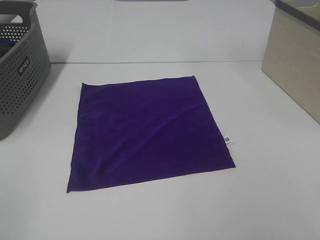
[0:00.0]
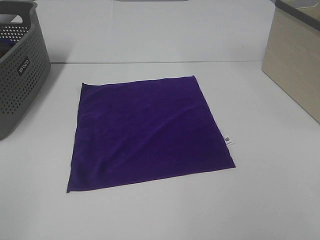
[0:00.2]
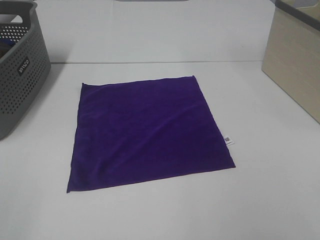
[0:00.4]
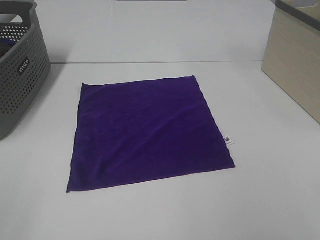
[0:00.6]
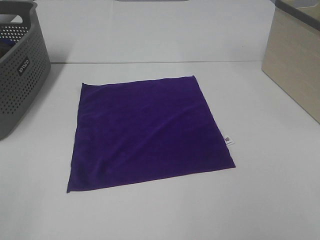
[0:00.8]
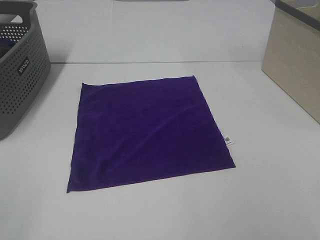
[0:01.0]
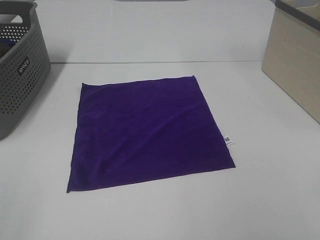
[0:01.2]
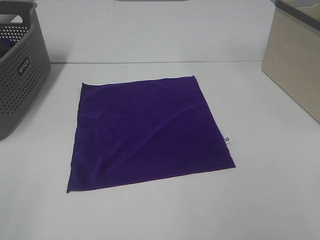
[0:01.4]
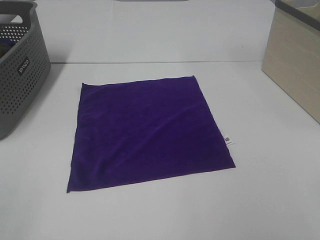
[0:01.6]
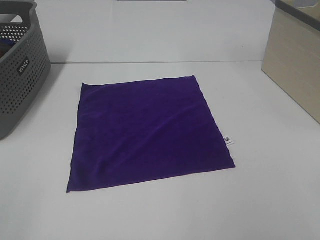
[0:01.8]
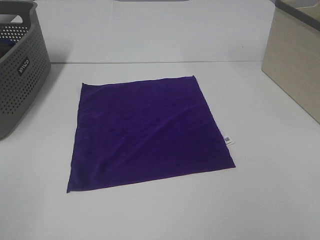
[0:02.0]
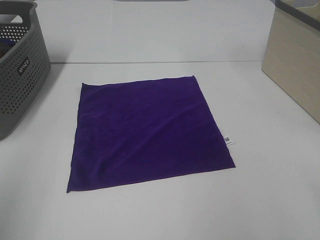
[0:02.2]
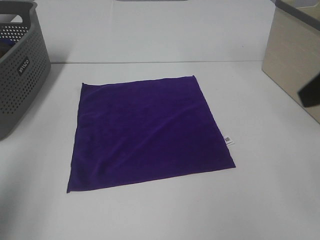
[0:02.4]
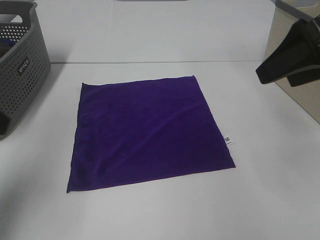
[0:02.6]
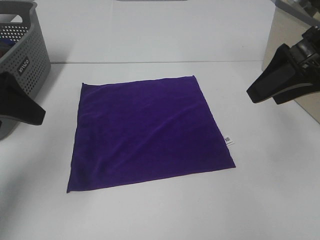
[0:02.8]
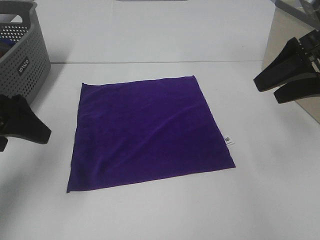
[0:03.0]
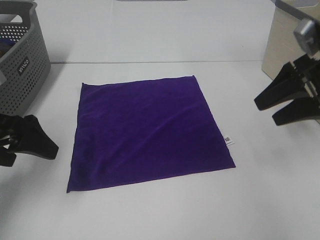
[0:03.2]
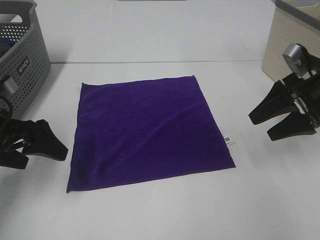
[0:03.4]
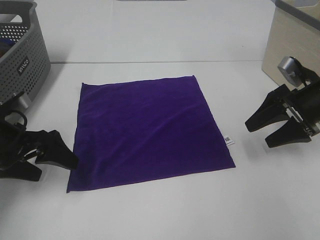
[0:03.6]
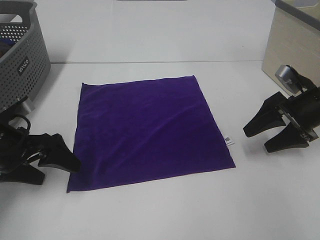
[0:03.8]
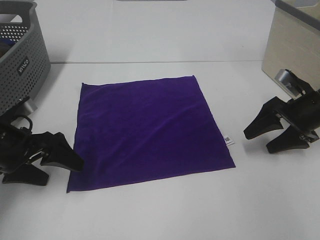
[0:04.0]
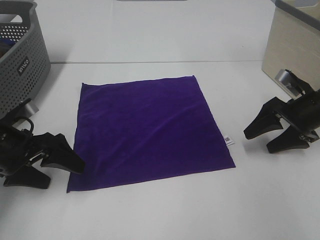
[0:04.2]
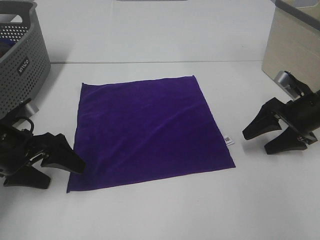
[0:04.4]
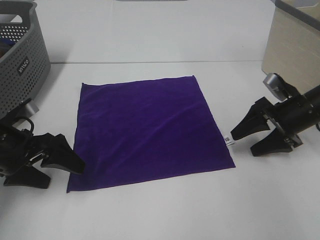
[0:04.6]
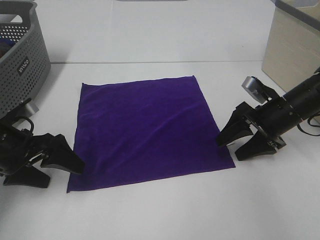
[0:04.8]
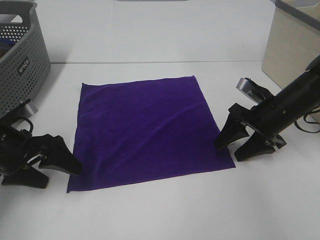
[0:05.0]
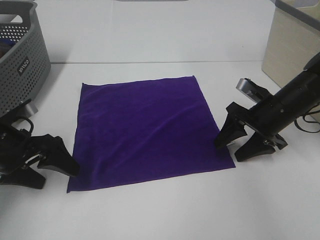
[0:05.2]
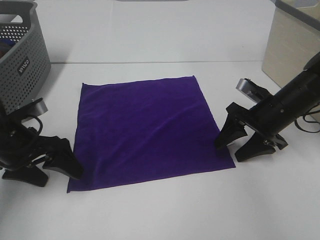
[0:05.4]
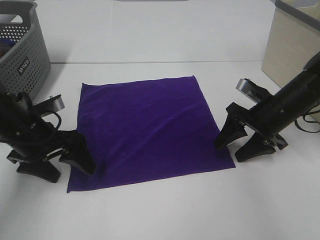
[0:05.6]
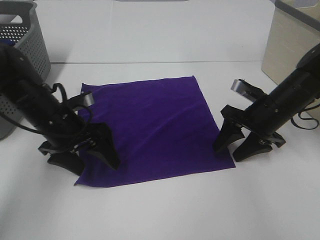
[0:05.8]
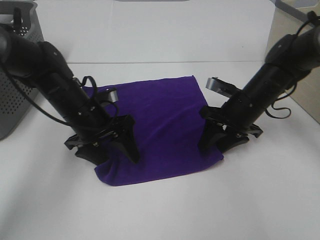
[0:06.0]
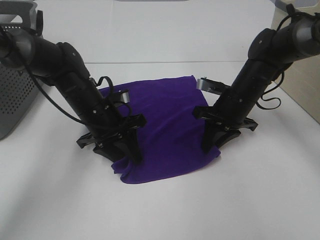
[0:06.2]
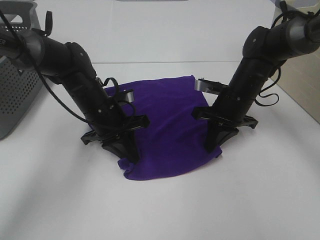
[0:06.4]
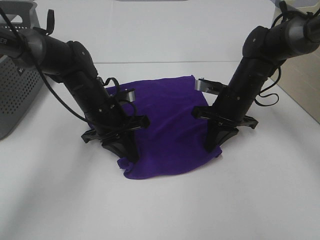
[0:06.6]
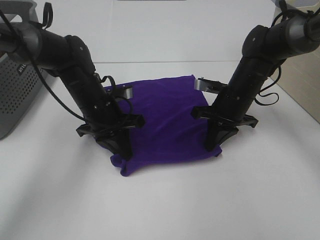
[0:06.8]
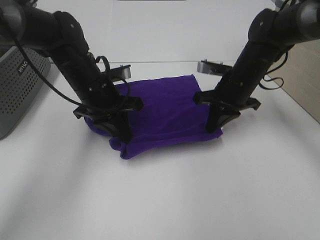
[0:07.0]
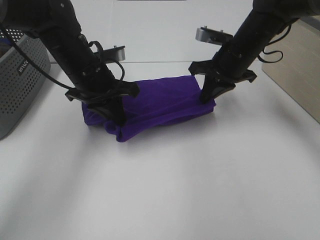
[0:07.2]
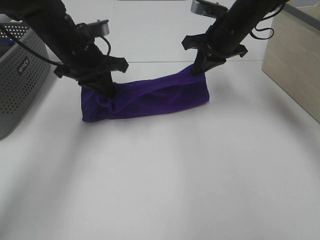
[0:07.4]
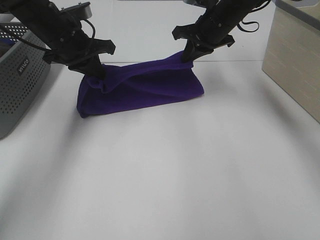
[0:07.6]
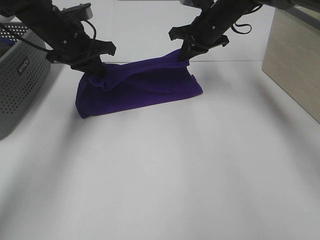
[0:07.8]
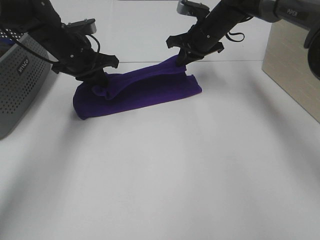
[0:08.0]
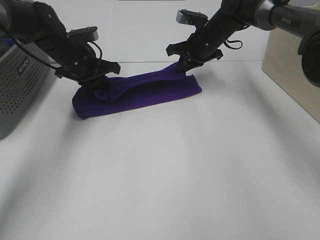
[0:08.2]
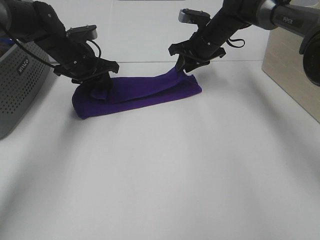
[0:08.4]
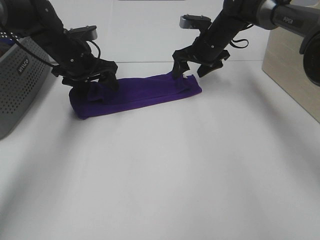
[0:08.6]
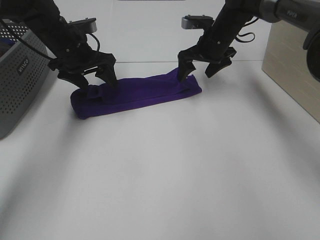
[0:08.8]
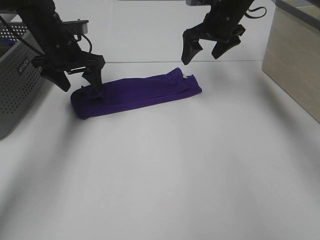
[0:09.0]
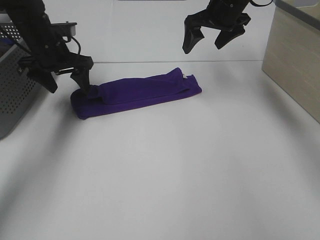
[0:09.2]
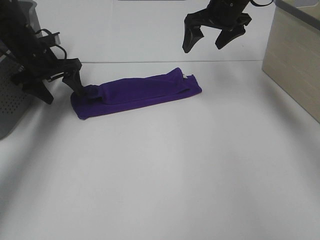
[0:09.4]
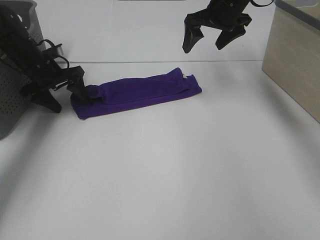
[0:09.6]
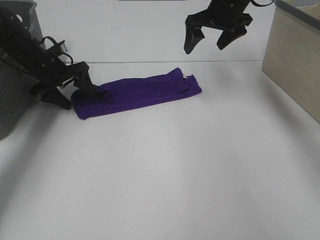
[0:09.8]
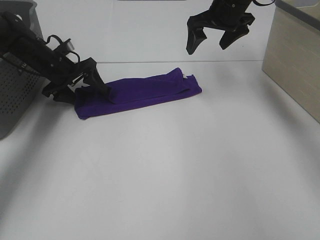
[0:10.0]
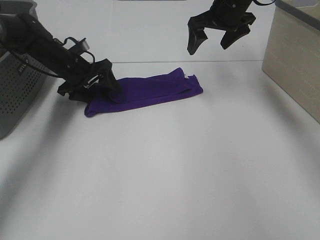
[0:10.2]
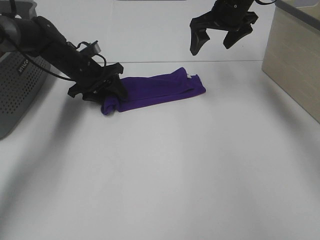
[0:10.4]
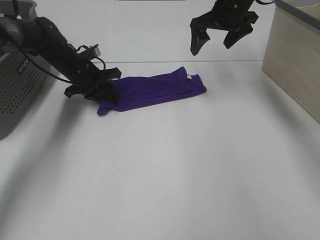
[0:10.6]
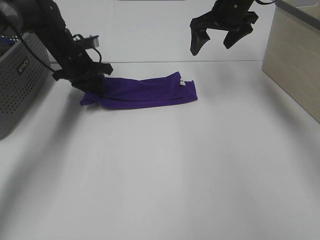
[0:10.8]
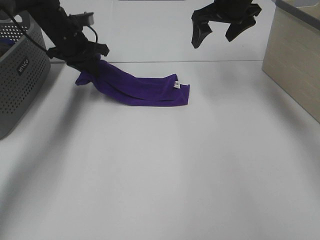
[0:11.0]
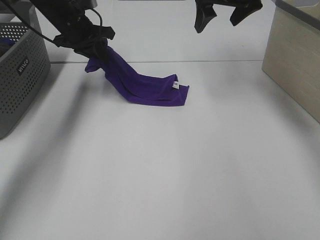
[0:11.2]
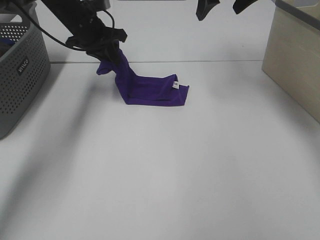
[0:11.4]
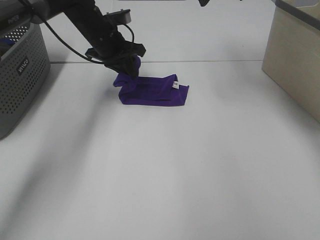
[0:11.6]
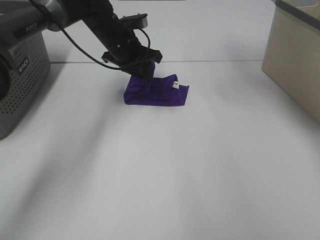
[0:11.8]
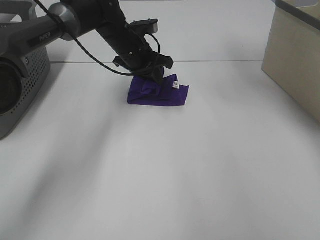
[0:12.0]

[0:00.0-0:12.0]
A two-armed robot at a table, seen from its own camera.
Task of the whole recording: Fold towels.
Step, 0:00.0 to 0:06.4: Left hand: grab the bottom left corner of purple towel.
Step, 0:00.0 to 0:06.4: Right hand: grab the bottom right corner of purple towel.
Step, 0:06.6 to 0:08.2: Left hand: fold the purple towel up.
Step, 0:06.6 to 0:08.2: Right hand: fold the purple towel up.
0:01.6 to 0:03.0: Both grippers travel together forward, approximately 25 cm.
0:03.0 to 0:04.4: The two grippers go roughly 15 cm downward.
0:04.4 to 0:06.0: The right gripper heads to the left, covering about 10 cm. Meanwhile the left gripper heads to the right and forward, covering some 15 cm.
0:06.0 to 0:07.6: The right gripper shifts roughly 20 cm forward, upward and to the left, and closes its fingers. The left gripper goes some 15 cm upward and forward, and closes.
0:07.6 to 0:09.0: The left gripper opens, while the right gripper opens up.
0:09.0 to 0:10.4: The left gripper travels downward by approximately 10 cm.
0:10.4 to 0:12.0: The right gripper heads upward, covering roughly 15 cm. The left gripper travels to the right and upward by roughly 15 cm, and closes up.

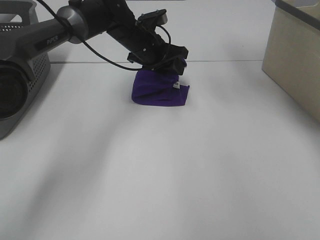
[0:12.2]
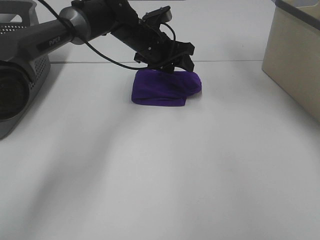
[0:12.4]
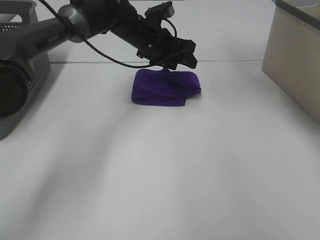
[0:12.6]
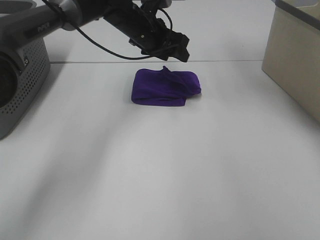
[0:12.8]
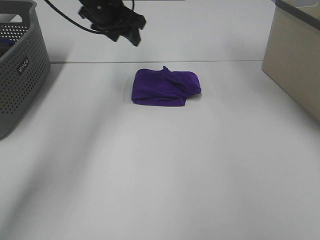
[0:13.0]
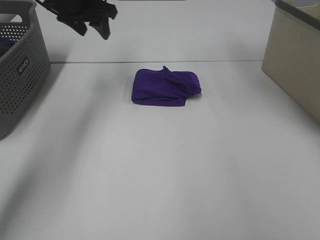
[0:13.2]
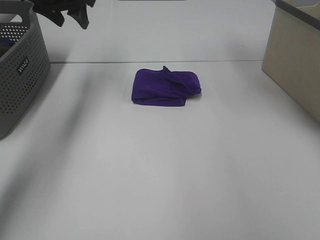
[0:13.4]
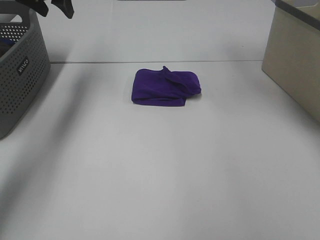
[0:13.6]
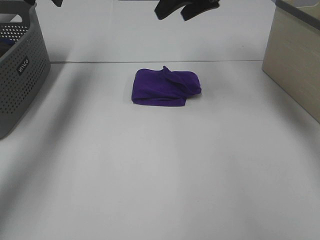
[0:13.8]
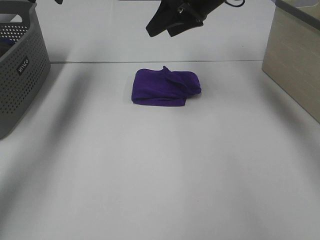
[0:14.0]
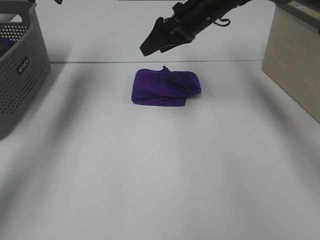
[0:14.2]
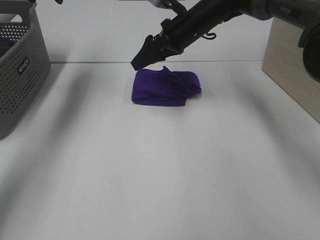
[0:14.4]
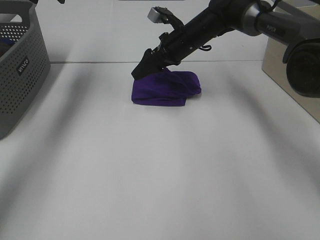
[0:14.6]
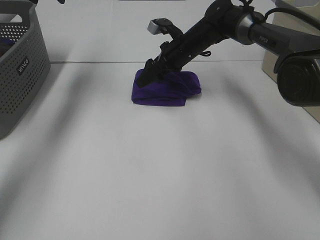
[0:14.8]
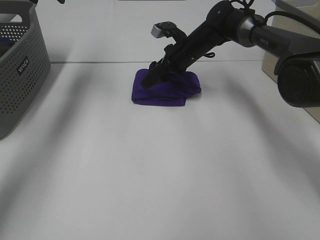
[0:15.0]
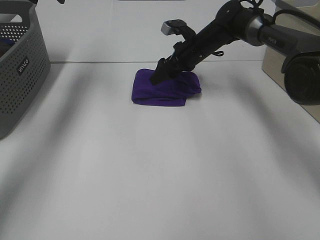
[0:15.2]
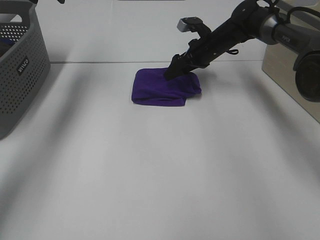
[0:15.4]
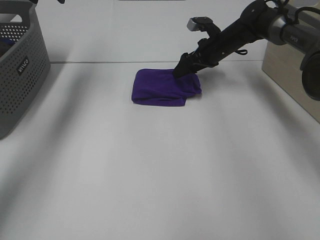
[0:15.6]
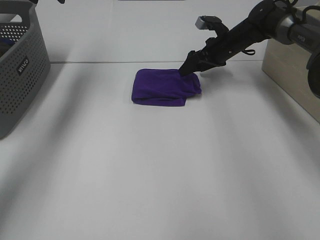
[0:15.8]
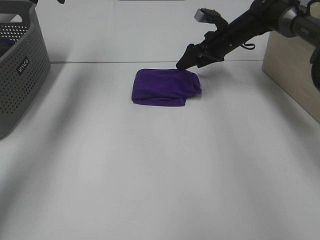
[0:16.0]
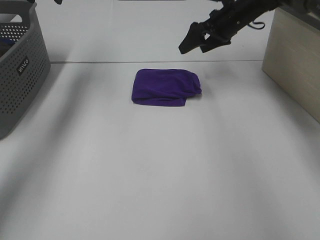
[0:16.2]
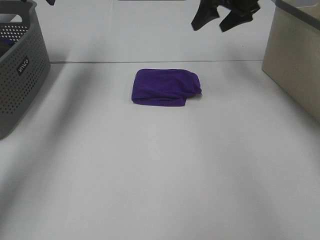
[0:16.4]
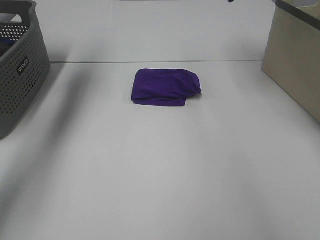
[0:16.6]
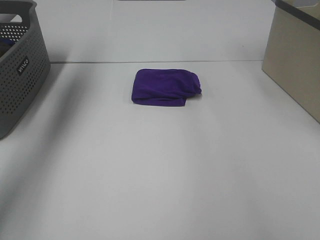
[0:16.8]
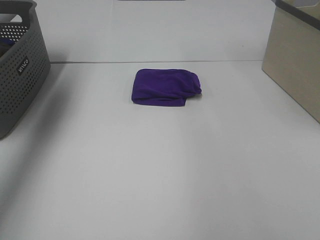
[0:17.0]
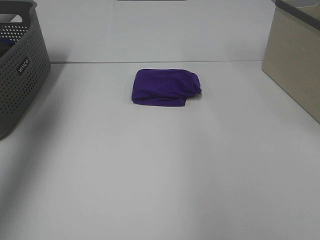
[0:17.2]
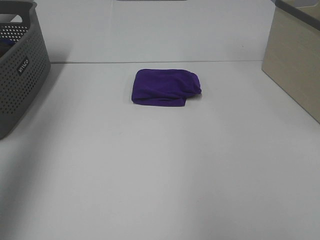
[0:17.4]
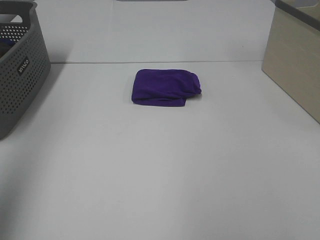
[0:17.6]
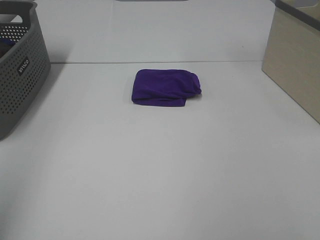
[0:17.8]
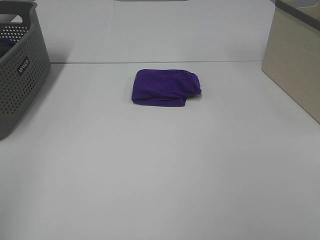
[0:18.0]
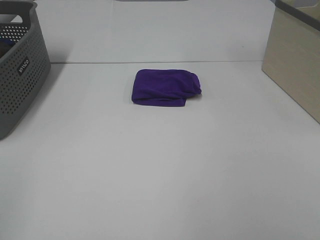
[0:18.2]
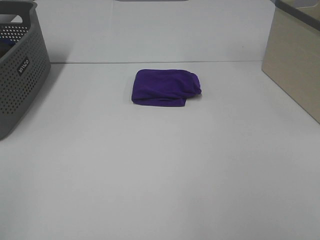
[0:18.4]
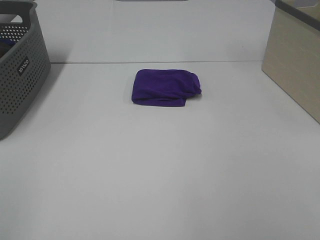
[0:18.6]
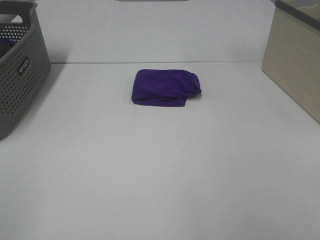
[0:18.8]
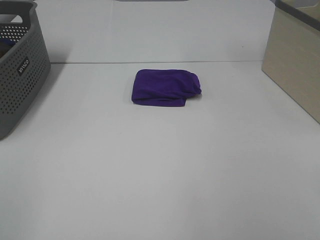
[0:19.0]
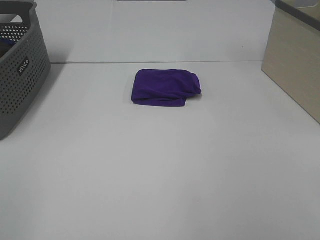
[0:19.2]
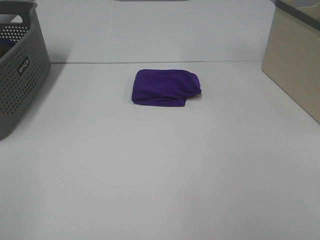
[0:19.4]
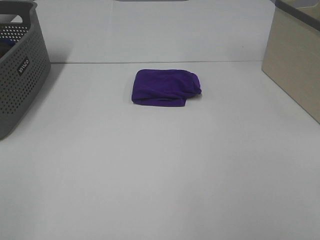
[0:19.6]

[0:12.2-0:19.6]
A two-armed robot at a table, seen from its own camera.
Task of the whole recording: Fold towels.
Step, 0:12.4 to 0:15.8: Right hand: adjust the purple towel.
0:12.2 to 0:13.6: The left gripper goes approximately 25 cm to the left and upward.
0:13.6 to 0:15.2: The right gripper heads downward, covering roughly 25 cm.
0:15.2 to 0:16.6: The right gripper heads upward and to the right, covering some 25 cm.
0:16.6 to 0:18.2: Both grippers move backward, approximately 50 cm.

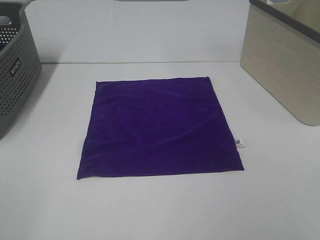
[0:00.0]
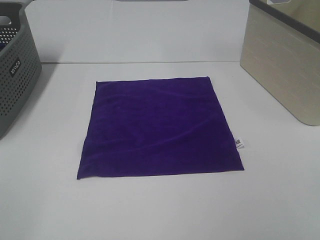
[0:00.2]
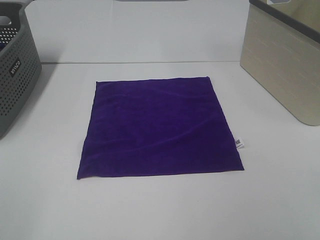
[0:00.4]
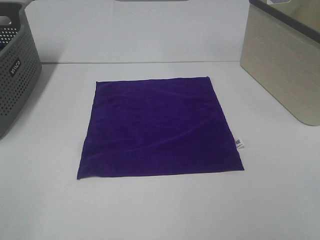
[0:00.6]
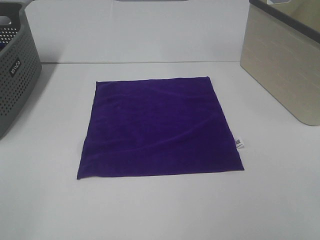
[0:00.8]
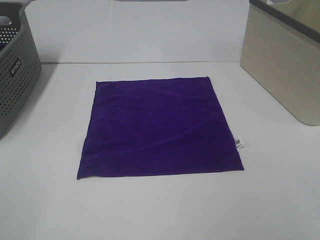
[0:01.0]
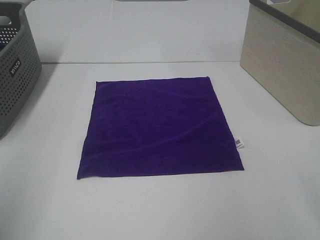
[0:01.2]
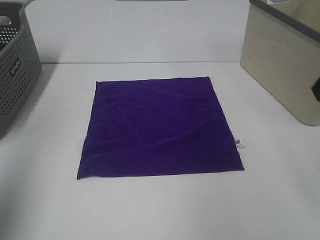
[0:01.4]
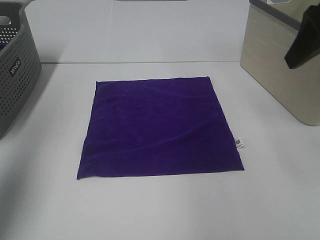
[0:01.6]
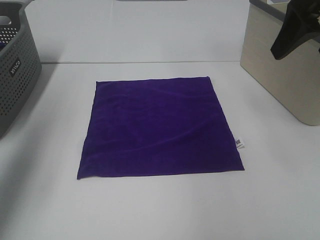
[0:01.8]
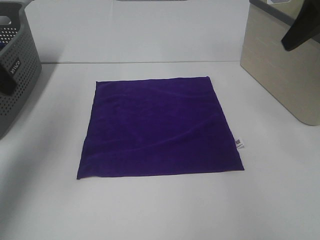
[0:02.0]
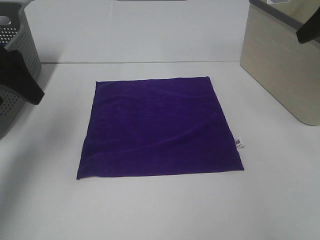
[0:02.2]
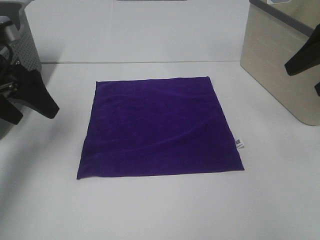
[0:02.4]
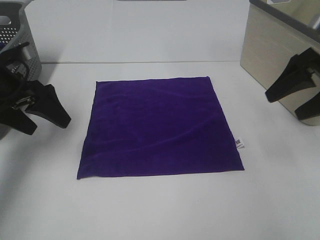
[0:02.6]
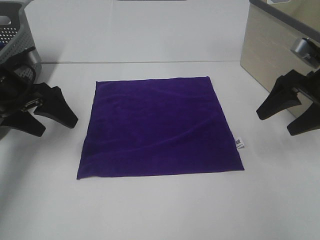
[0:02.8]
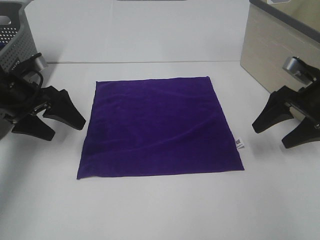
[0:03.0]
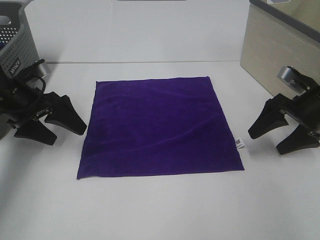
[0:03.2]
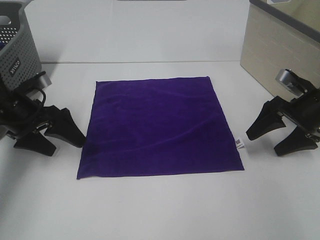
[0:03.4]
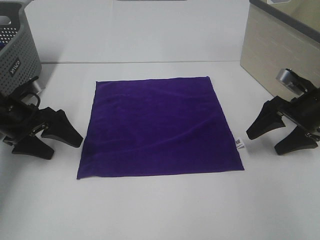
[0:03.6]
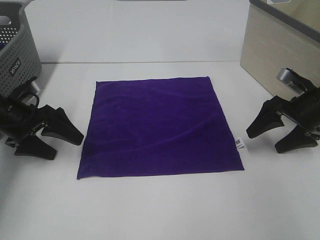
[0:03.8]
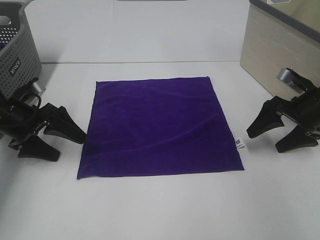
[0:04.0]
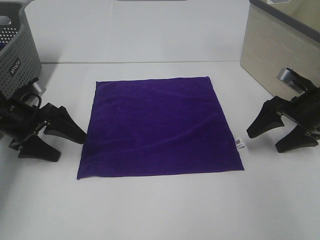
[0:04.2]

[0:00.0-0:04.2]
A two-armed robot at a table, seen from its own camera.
Task of the whole recording: Fold towels.
0:00.0 to 0:01.4: The left gripper shifts some 15 cm forward and upward.
0:01.4 to 0:02.8: The left gripper shifts roughly 30 cm forward and downward; the right gripper heads downward and forward, covering roughly 20 cm.
0:02.8 to 0:04.2: Both grippers move downward, approximately 5 cm.
